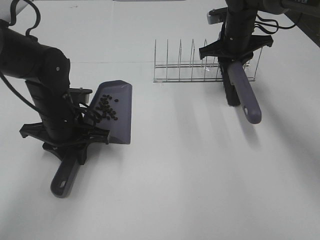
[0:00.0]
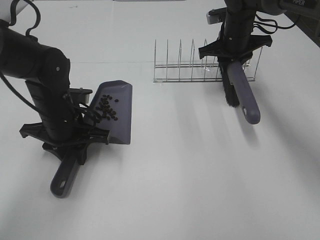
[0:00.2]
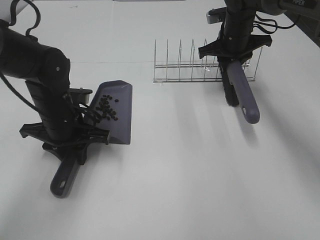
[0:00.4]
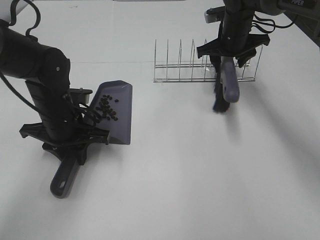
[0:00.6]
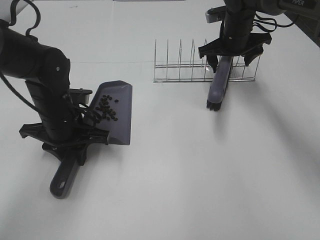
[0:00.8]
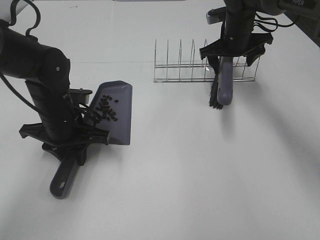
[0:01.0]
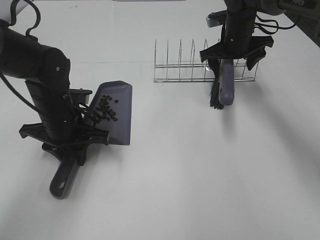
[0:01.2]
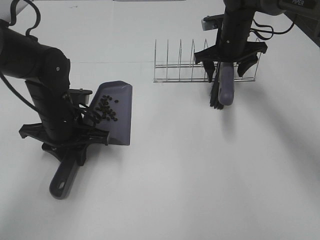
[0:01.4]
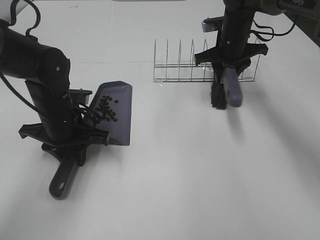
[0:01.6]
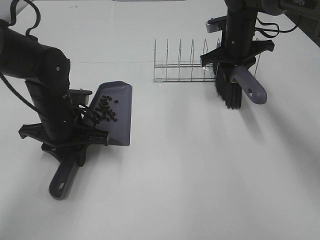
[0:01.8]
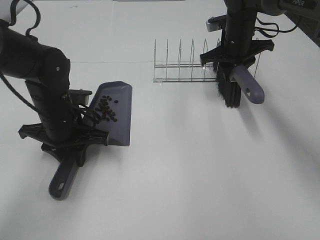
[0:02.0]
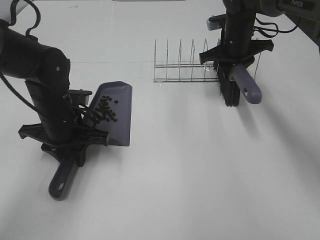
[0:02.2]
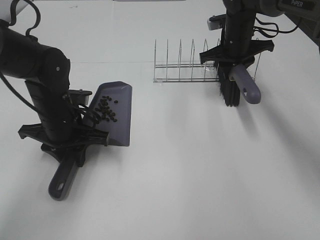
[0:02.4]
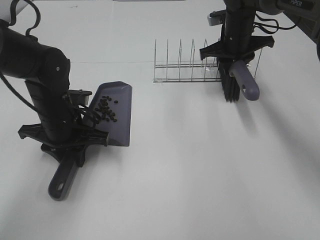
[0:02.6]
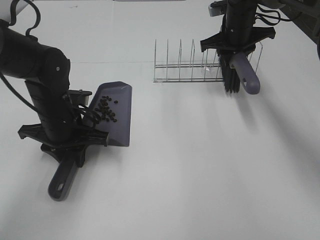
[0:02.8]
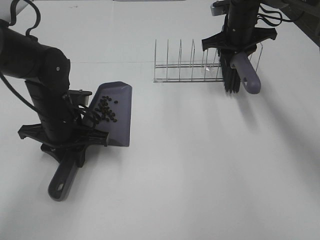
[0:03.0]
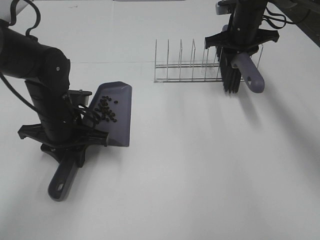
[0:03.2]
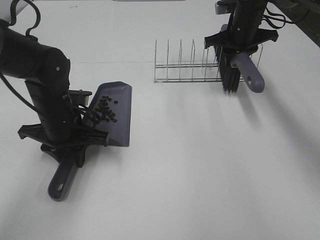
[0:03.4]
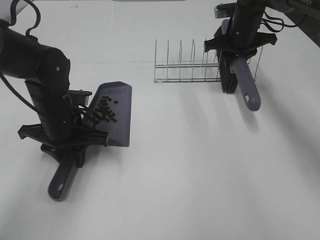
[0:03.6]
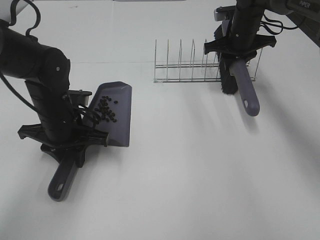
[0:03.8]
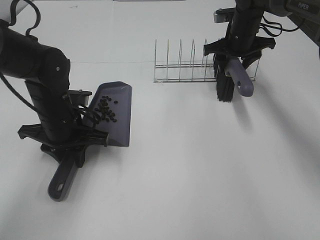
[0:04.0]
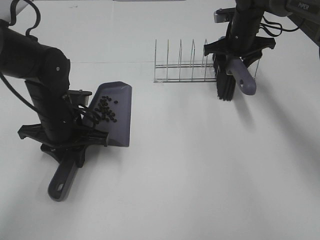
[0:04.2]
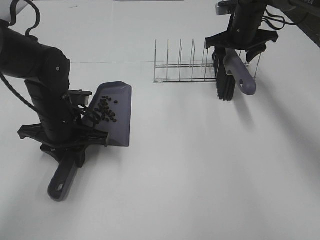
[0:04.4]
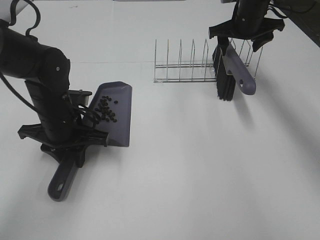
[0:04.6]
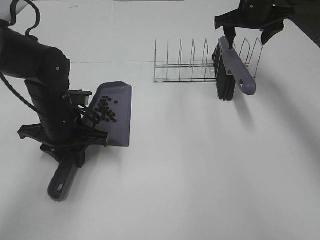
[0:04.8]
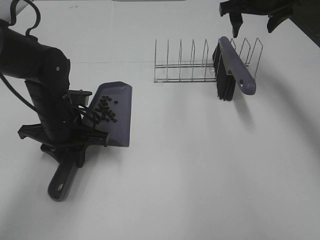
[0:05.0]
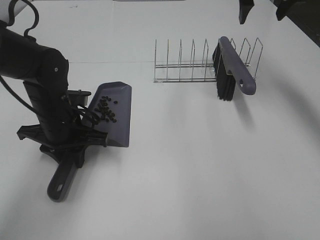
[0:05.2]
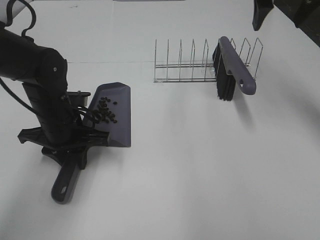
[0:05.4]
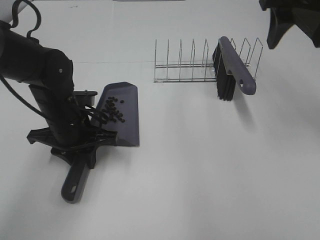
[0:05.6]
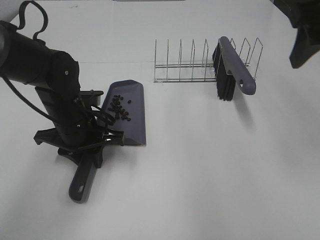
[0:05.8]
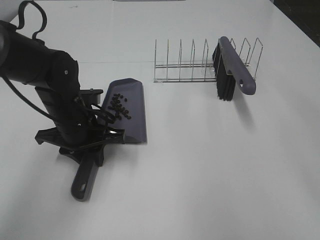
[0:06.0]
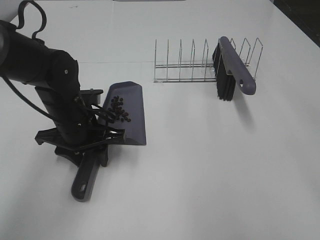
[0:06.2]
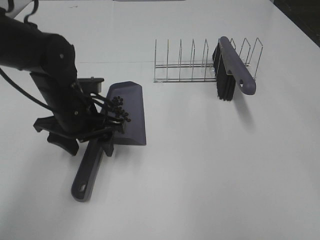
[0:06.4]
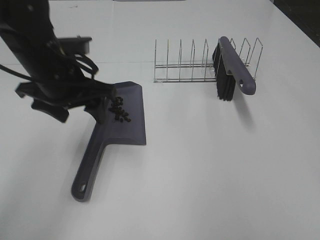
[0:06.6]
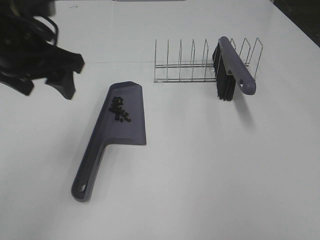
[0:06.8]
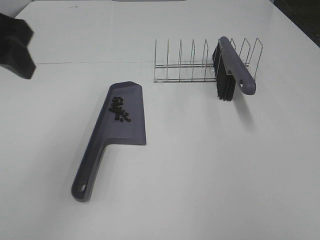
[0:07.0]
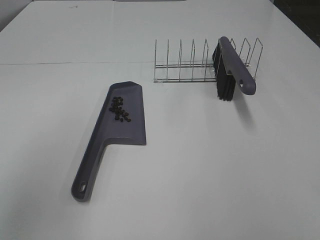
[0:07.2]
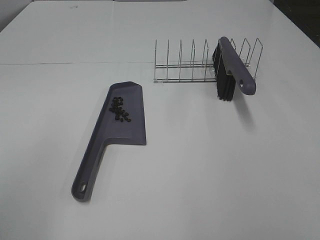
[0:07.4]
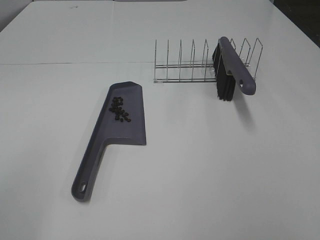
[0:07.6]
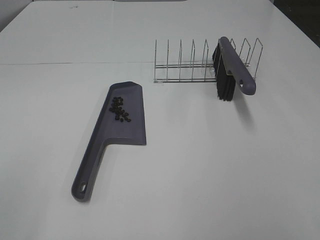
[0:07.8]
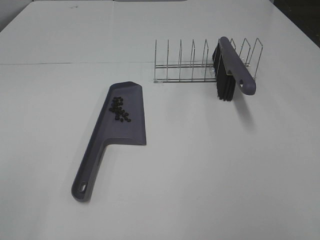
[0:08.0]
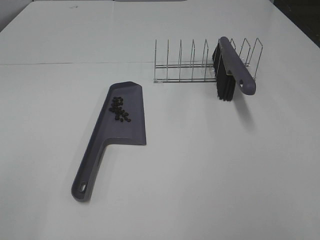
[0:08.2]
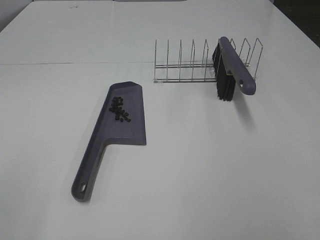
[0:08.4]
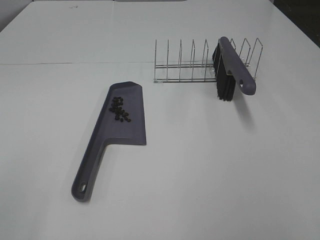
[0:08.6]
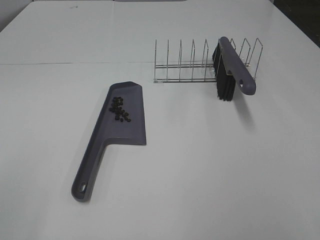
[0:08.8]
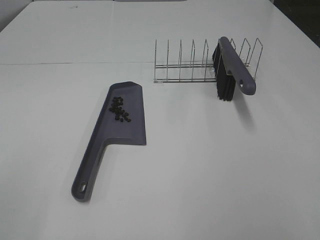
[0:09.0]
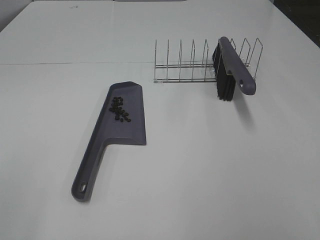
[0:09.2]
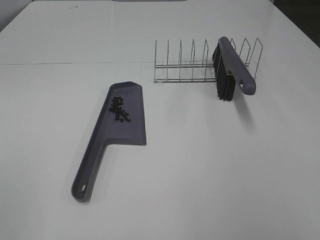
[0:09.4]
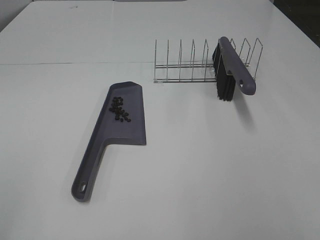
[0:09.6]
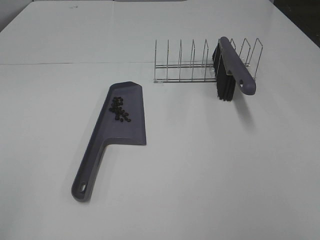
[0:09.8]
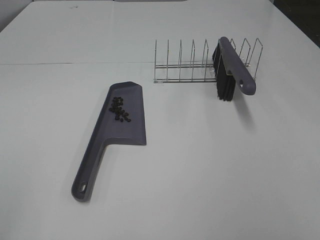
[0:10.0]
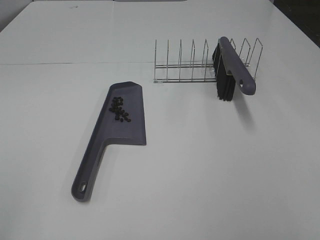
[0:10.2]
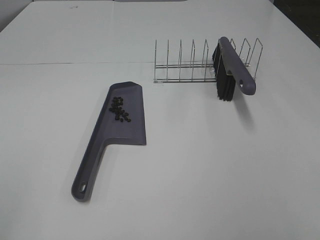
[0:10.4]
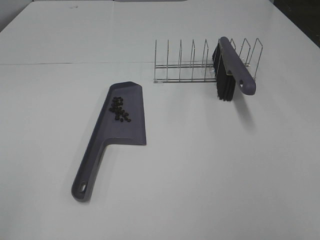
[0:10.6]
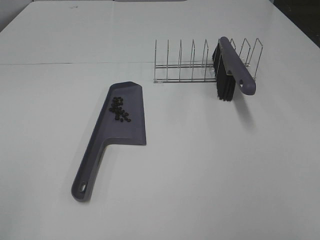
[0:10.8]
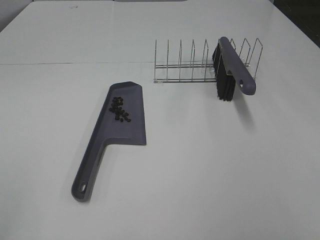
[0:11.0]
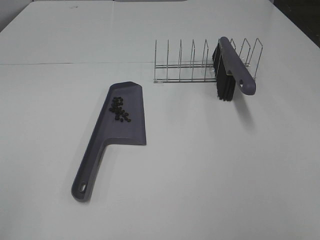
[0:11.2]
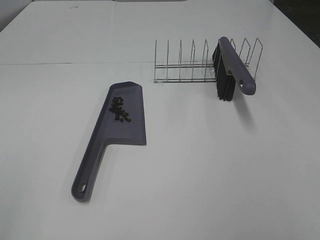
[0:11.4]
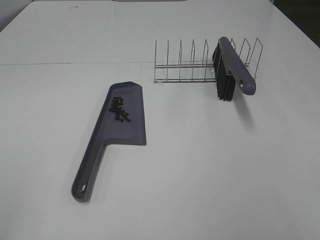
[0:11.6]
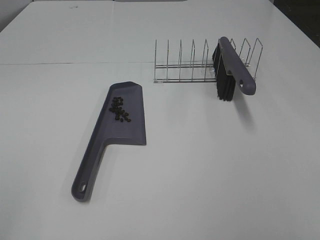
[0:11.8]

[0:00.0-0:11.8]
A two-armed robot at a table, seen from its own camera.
Task of the whole recording: Sweep Coffee Bean.
Step, 0:00.0 to 0:04.4: Right hand:place the broom on the rack.
0:00.0 to 0:01.4: The right gripper opens up.
0:01.4 to 0:03.0: The right gripper closes.
0:03.0 to 0:04.4: The right gripper opens its fingers.
0:04.4 to 0:06.0: The right gripper shifts some 40 cm backward and upward.
0:06.0 to 0:07.4: The right gripper shifts roughly 15 cm backward and downward, while the left gripper travels backward, upward and to the left by about 35 cm, and opens.
0:10.4 to 0:11.8: Neither gripper changes place.
